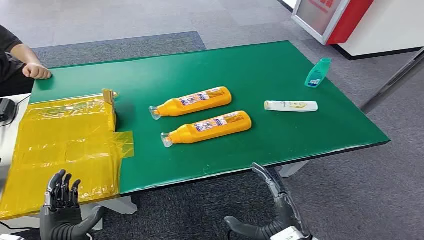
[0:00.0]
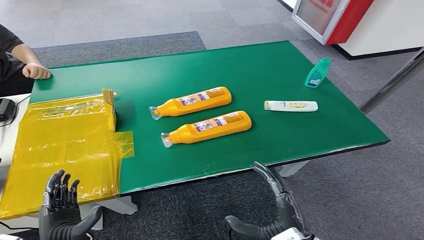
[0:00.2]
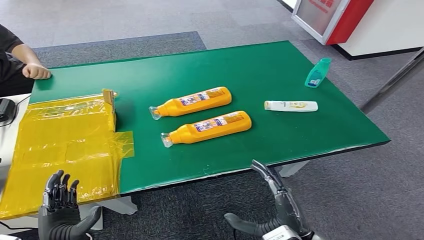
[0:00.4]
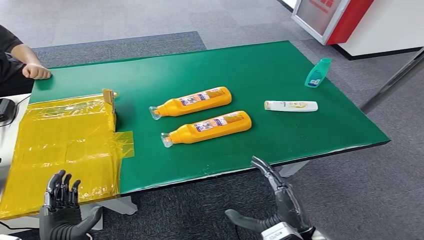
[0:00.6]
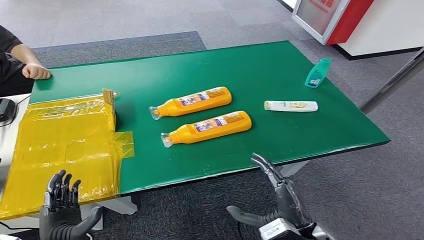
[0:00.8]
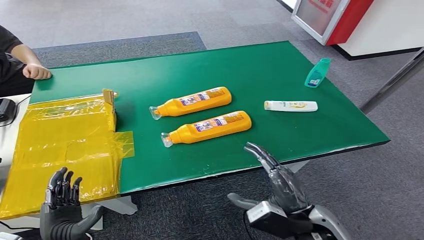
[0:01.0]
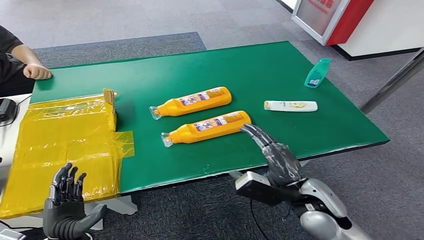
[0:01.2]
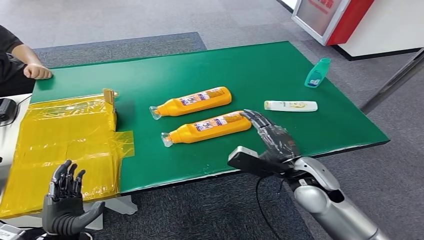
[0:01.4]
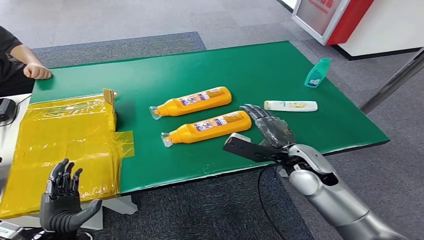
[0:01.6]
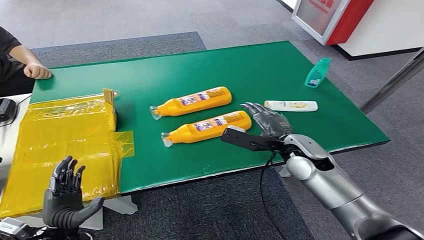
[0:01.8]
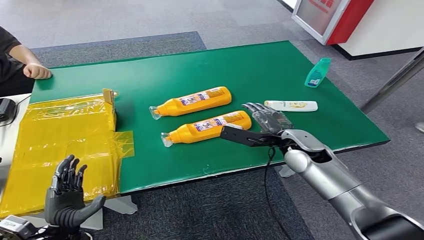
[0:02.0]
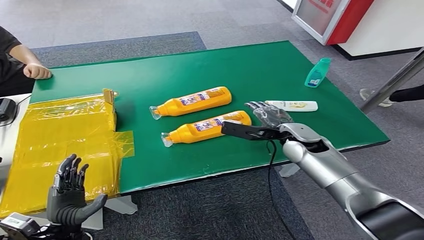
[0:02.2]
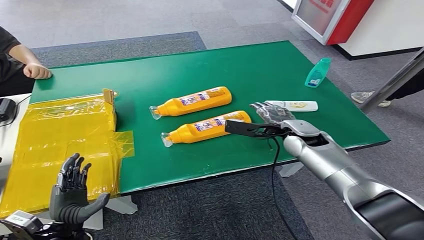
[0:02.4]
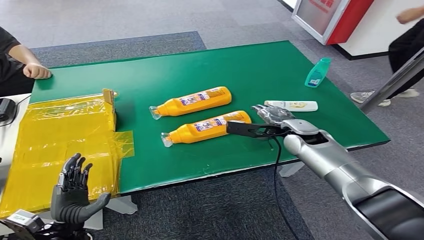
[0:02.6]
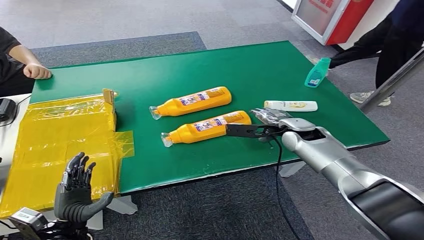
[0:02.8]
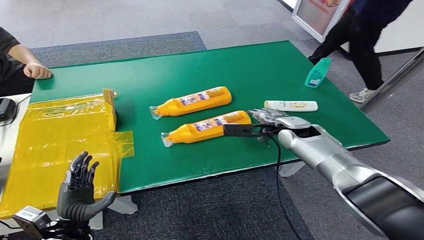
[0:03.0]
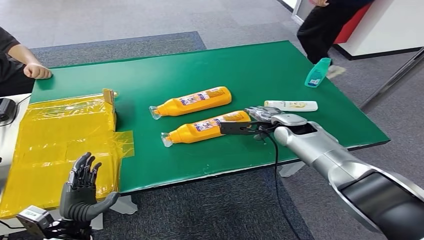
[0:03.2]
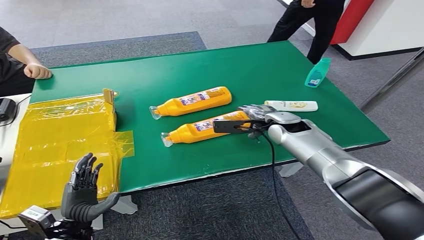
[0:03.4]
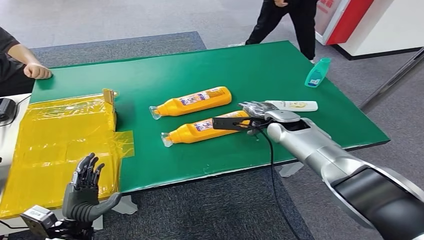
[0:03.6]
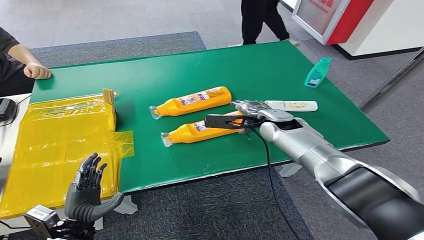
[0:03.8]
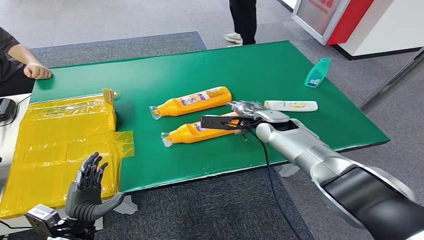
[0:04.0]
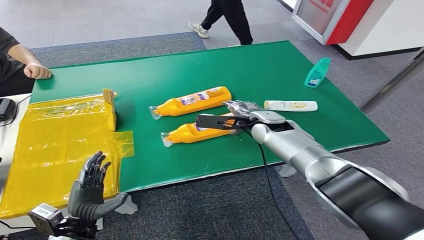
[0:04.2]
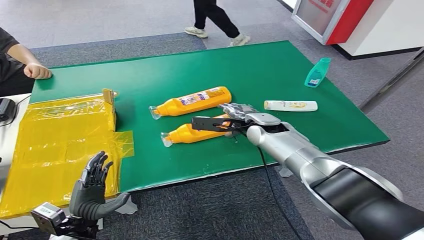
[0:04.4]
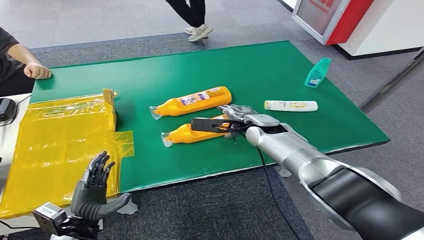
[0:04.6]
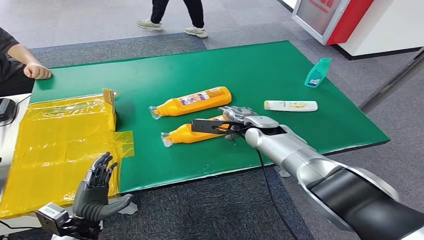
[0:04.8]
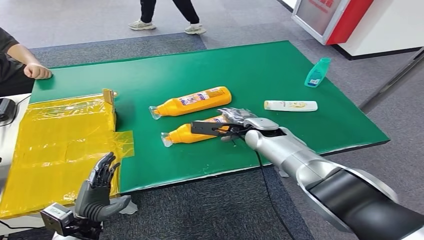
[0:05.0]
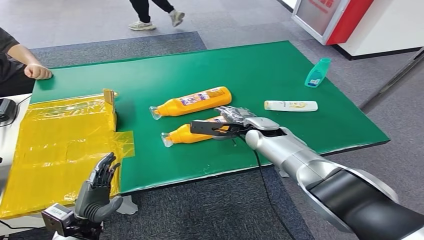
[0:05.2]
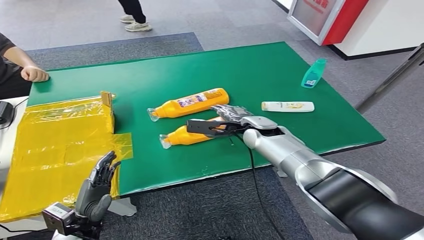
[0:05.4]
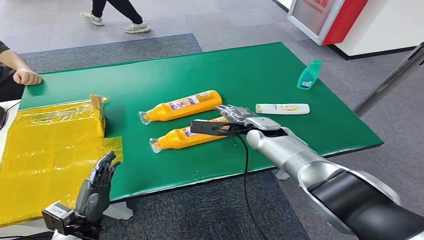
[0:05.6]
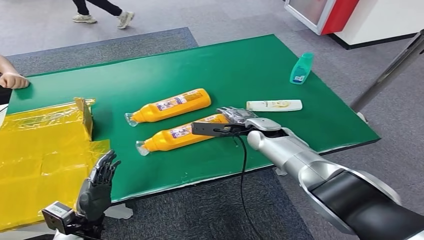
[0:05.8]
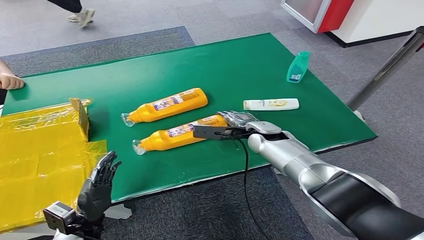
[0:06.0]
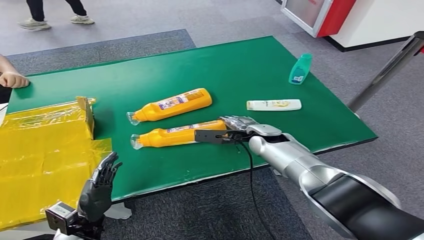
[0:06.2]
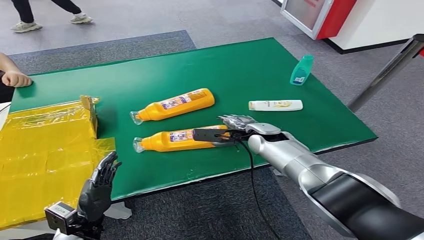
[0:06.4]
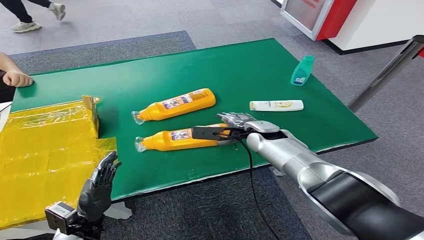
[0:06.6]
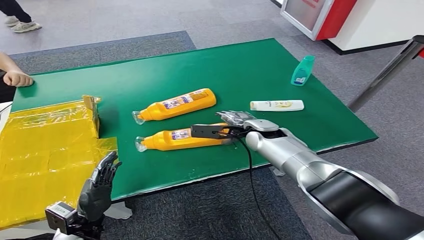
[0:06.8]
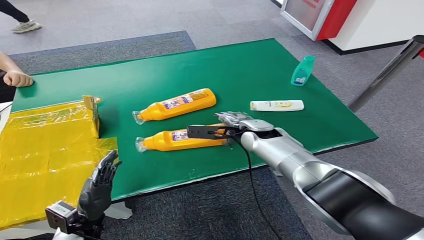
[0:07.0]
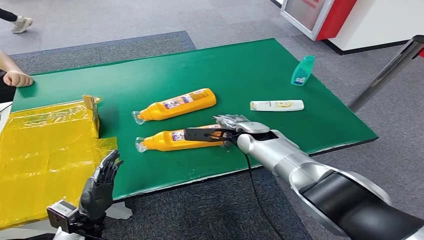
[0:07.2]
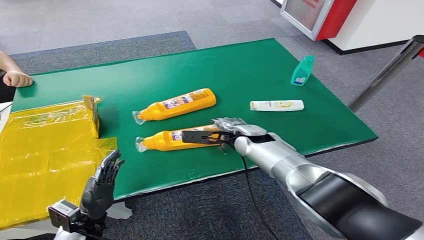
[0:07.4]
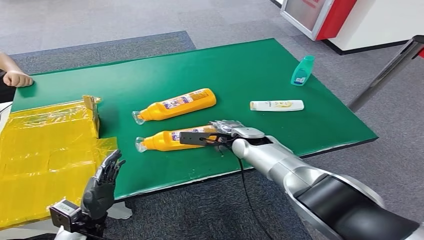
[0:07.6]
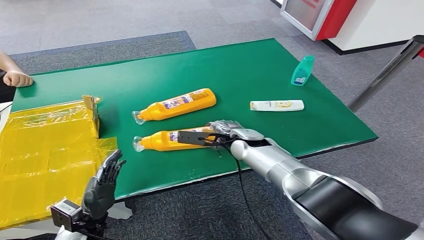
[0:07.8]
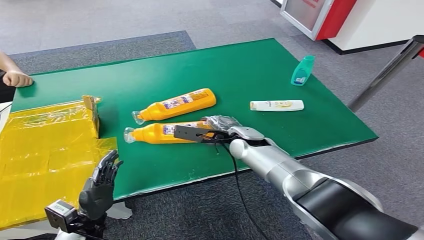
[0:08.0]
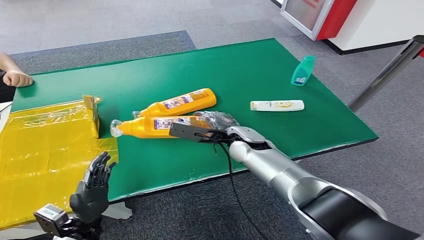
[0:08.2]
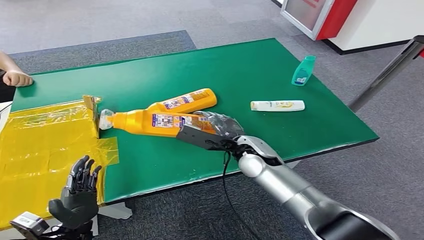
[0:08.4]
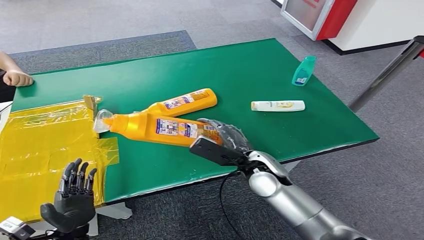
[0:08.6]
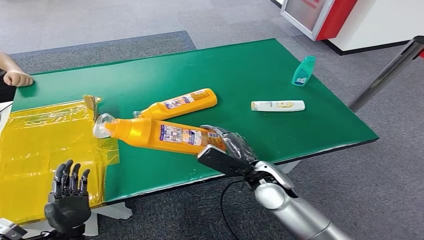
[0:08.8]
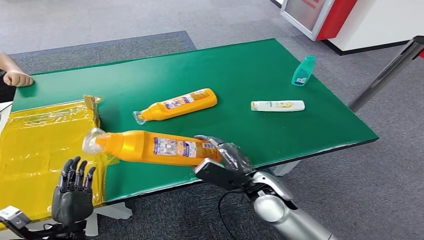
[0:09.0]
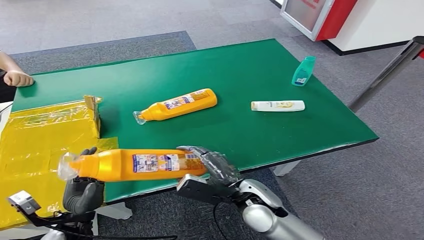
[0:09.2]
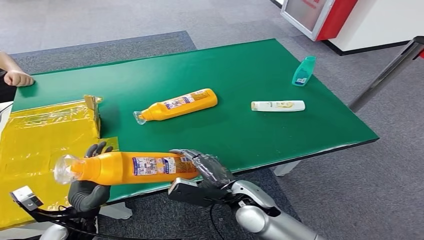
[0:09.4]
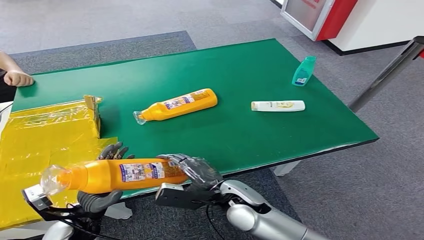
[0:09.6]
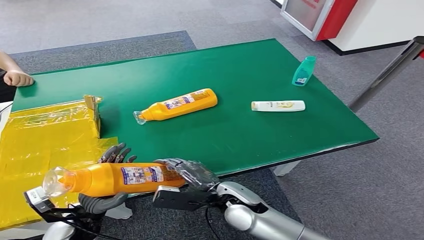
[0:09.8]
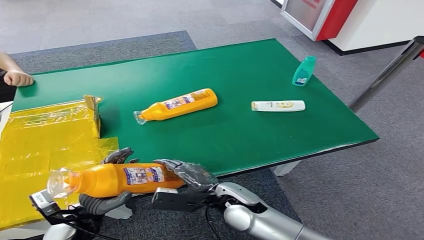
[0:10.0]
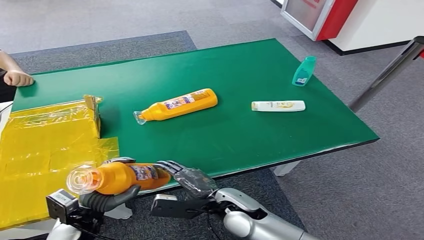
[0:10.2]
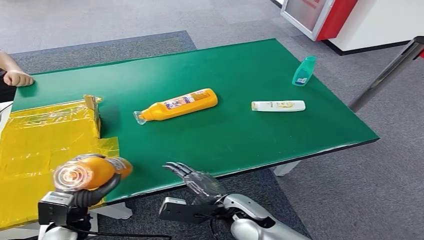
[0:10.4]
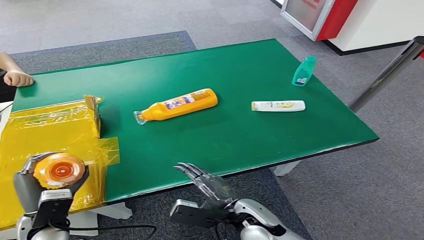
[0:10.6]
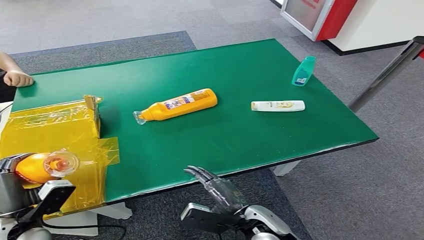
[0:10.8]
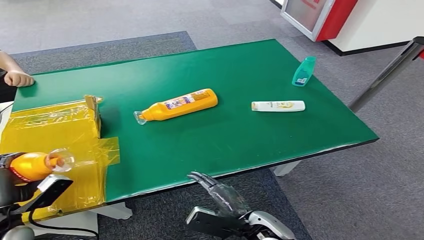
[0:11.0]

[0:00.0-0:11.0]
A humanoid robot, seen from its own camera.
Step, 0:00.0 to 0:08.4: Pick up the bottle from the table.
0:01.6 to 0:03.2: The right hand shifts about 15 cm forward.
0:03.2 to 0:04.8: The right hand moves to the left, approximately 10 cm.
0:06.2 to 0:07.8: The hands stay close to where they were, moving slightly.
0:09.4 to 0:11.0: The right hand moves backward, about 5 cm. Meanwhile the left hand moves to the left, some 15 cm.

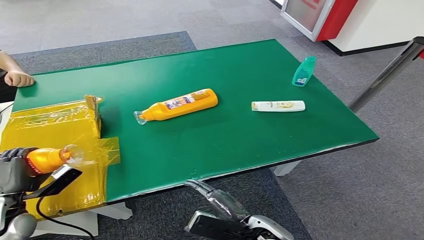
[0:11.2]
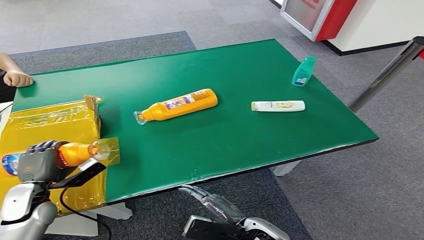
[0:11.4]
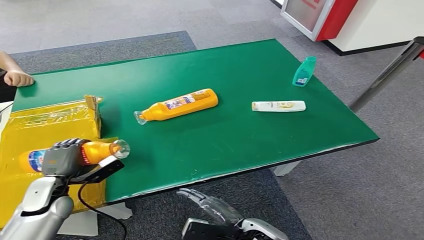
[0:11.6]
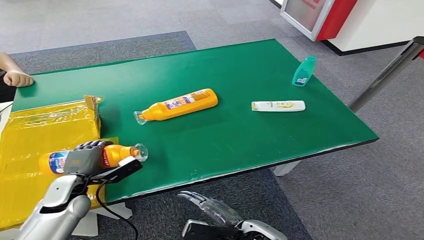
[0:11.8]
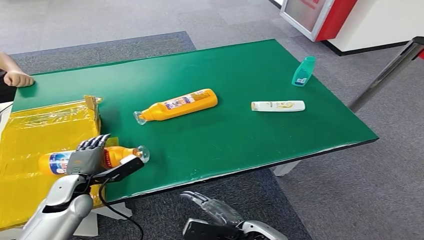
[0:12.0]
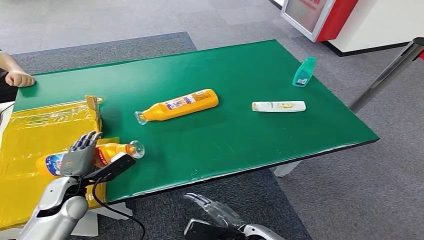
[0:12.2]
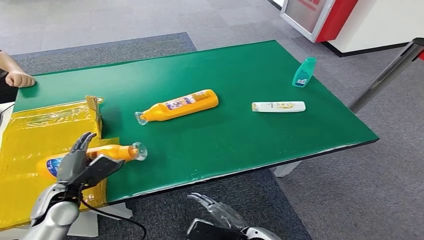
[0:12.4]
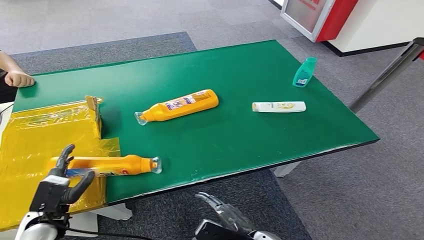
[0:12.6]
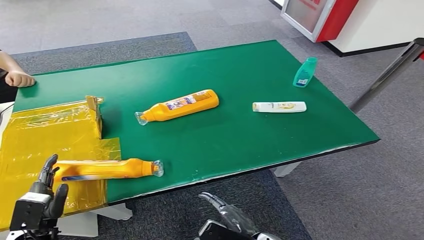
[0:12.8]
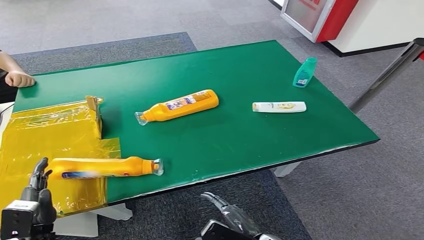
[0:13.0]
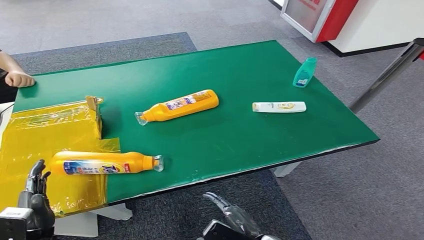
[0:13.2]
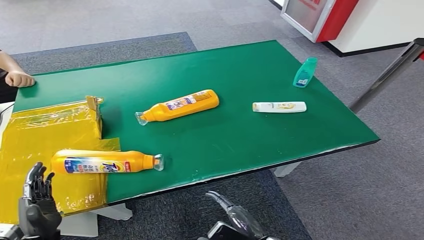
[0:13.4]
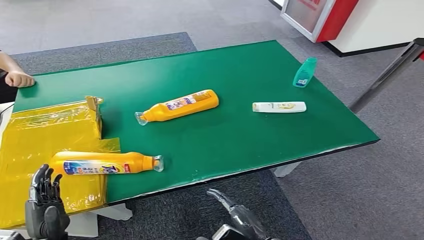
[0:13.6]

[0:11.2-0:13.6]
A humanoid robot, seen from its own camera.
Step, 0:11.2 to 0:13.4: Turn the bottle to the front side.
0:11.2 to 0:12.4: The left hand goes roughly 10 cm to the right.
0:12.4 to 0:13.6: The left hand goes roughly 15 cm backward.

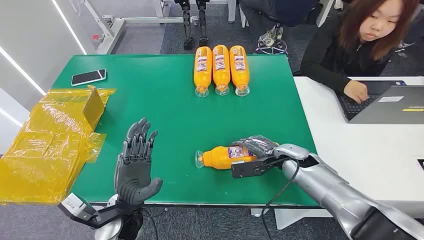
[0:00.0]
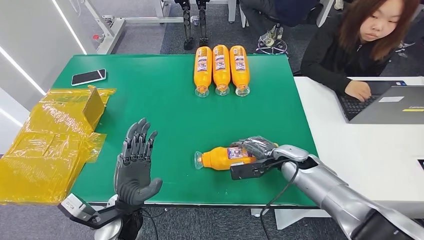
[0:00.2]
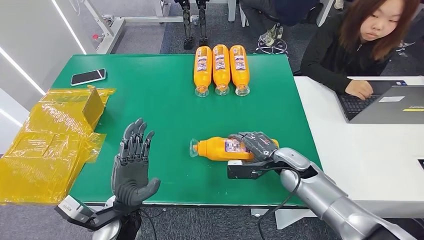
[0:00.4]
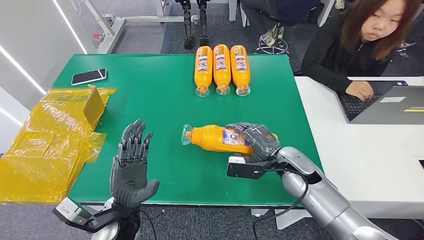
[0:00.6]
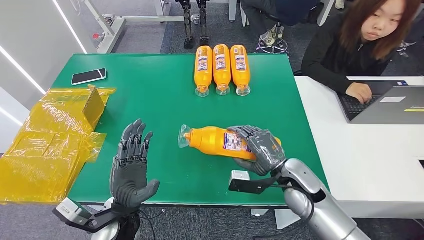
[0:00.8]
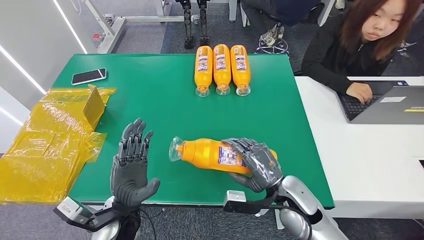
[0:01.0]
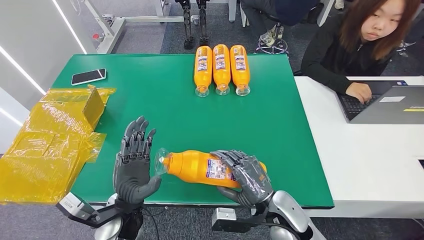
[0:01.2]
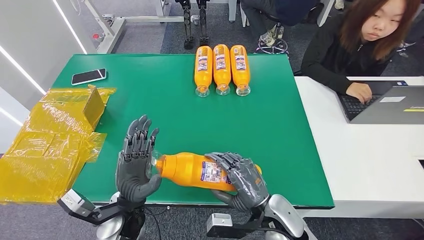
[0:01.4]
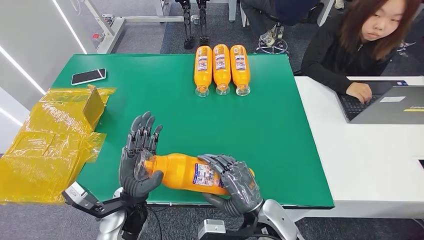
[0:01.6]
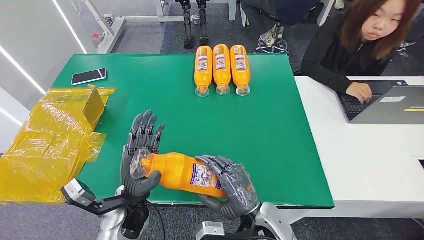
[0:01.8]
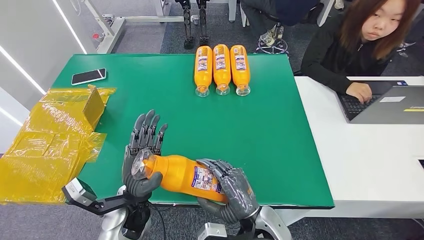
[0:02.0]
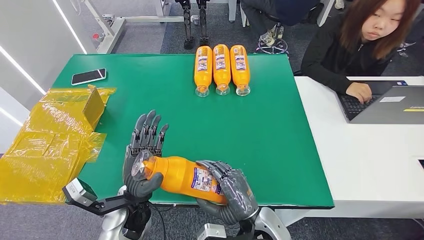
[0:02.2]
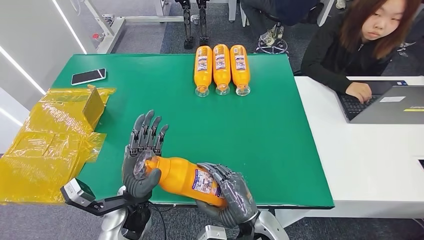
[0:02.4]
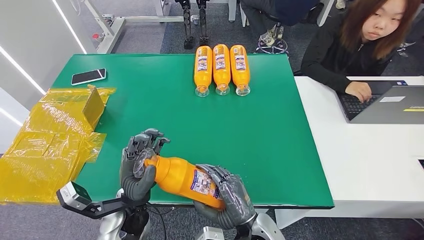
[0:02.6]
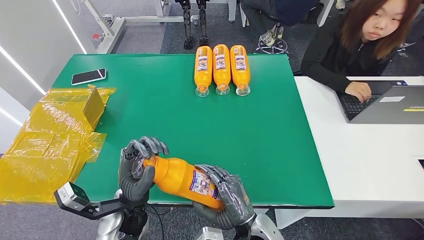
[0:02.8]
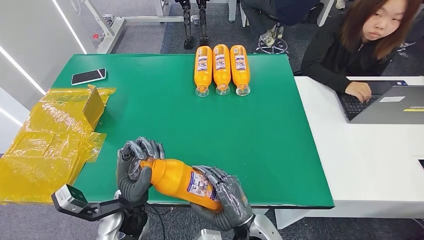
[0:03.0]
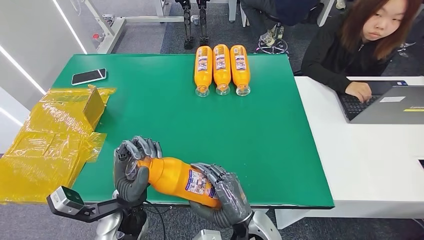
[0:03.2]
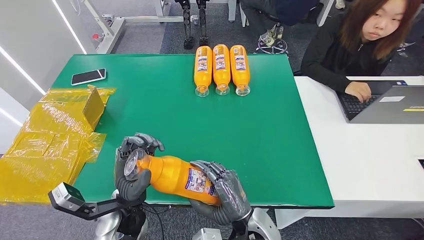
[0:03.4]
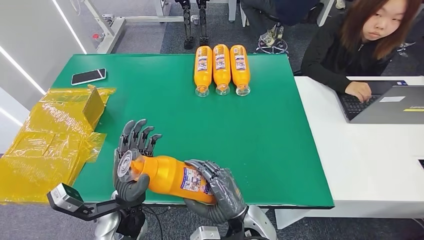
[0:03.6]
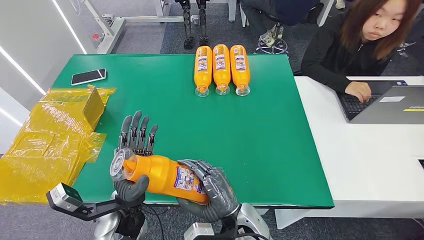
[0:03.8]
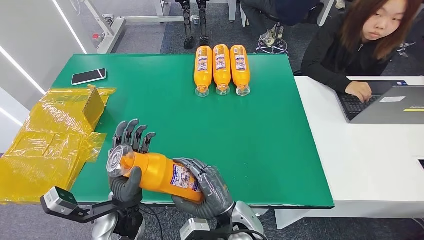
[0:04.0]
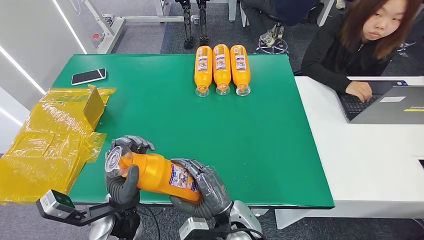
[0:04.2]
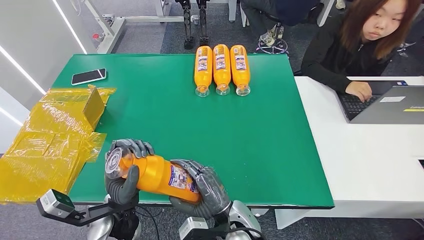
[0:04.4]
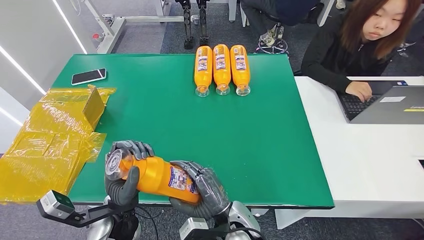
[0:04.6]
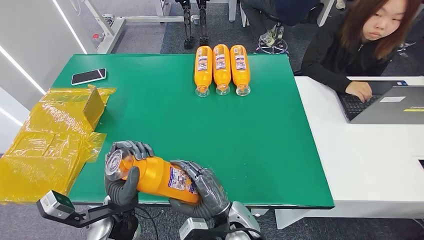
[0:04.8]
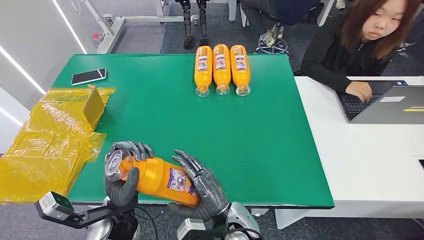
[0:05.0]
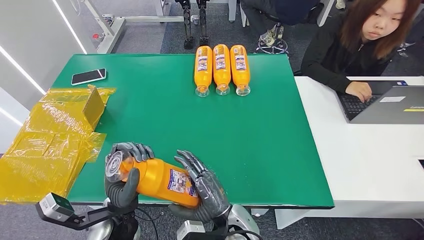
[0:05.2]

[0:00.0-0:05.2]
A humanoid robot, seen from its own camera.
Step, 0:00.0 to 0:01.6: Pick up the bottle from the table.
0:01.8 to 0:03.4: The hands make only small movements.
0:03.4 to 0:05.2: The hands move only a little.
